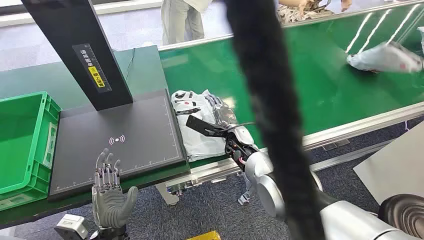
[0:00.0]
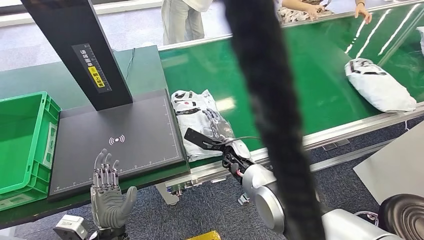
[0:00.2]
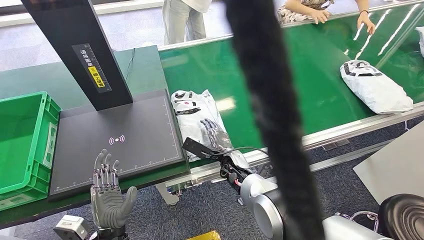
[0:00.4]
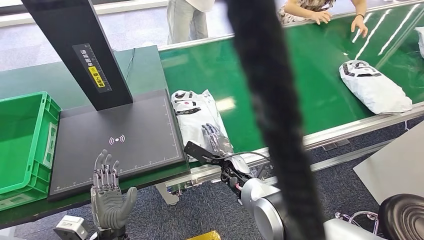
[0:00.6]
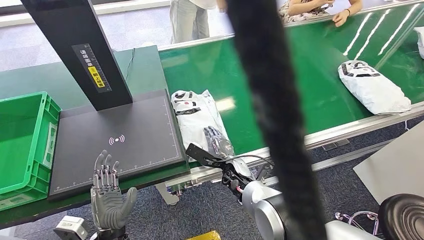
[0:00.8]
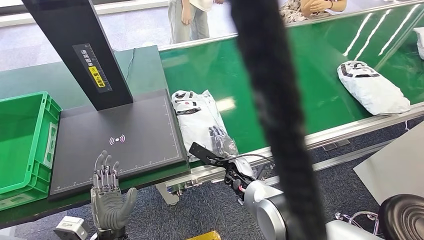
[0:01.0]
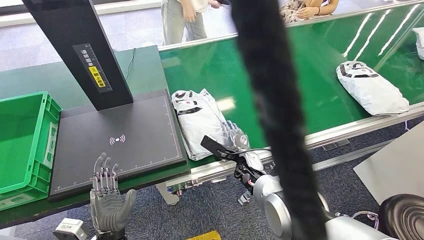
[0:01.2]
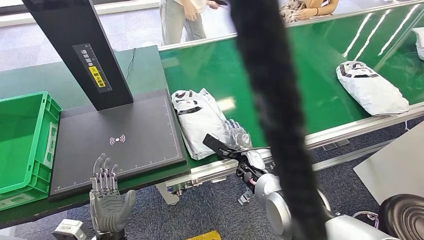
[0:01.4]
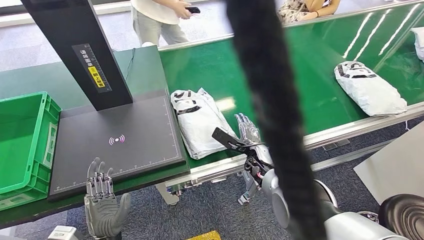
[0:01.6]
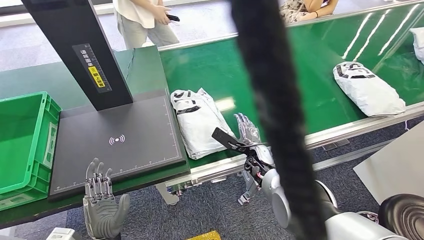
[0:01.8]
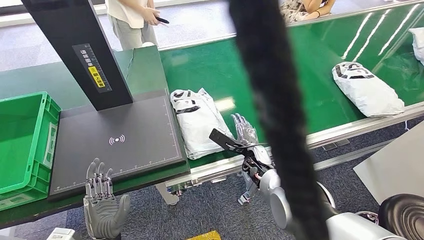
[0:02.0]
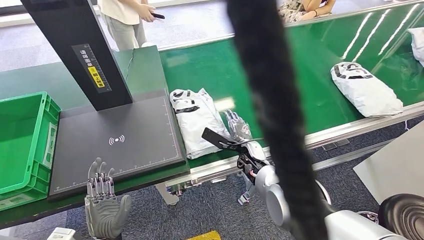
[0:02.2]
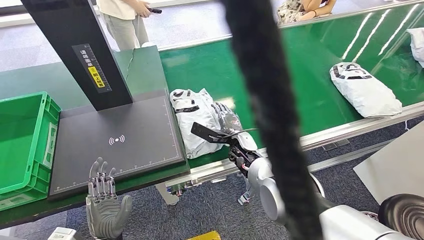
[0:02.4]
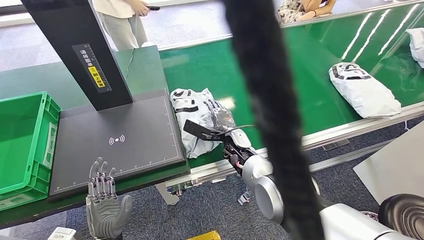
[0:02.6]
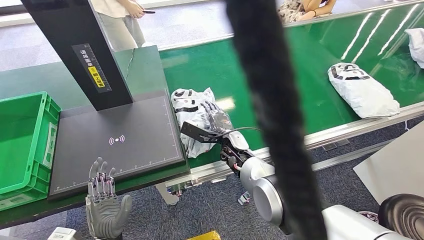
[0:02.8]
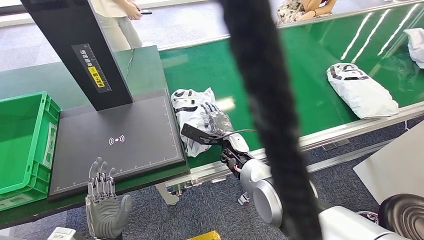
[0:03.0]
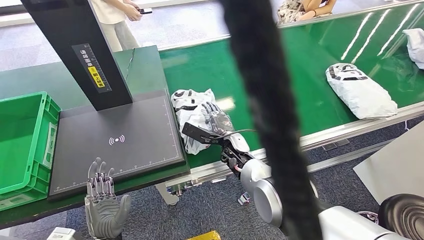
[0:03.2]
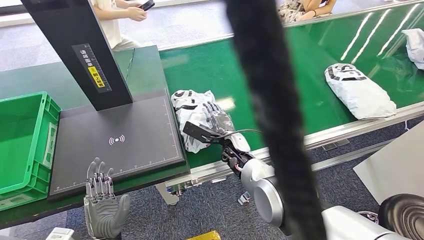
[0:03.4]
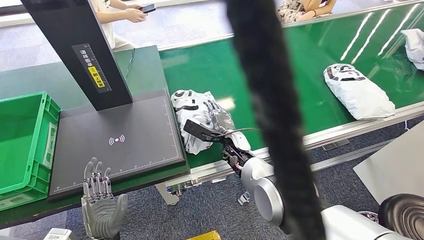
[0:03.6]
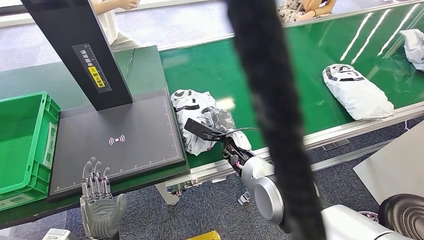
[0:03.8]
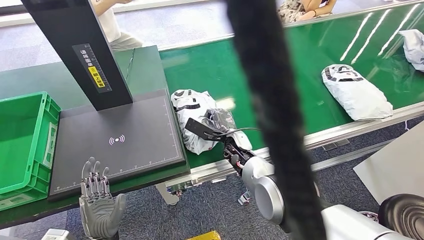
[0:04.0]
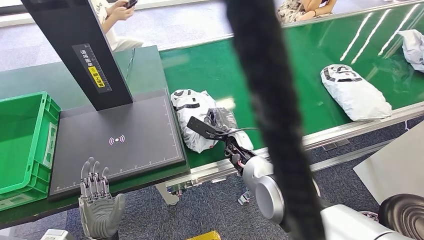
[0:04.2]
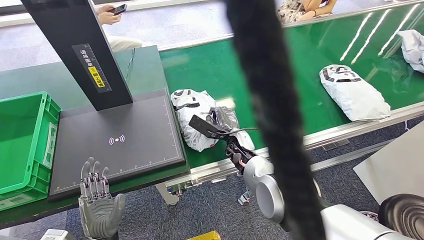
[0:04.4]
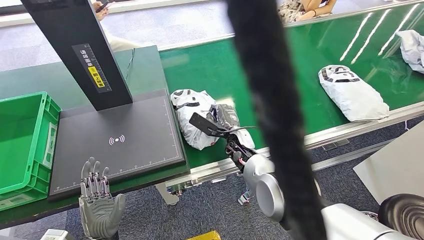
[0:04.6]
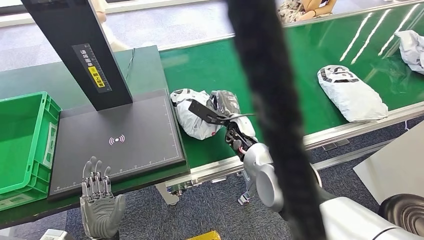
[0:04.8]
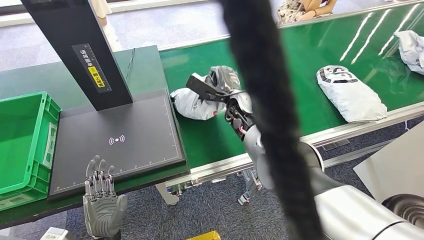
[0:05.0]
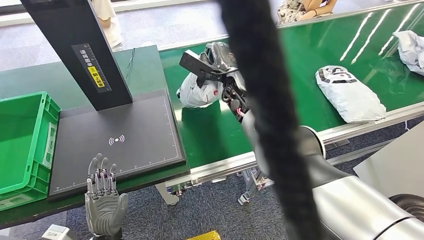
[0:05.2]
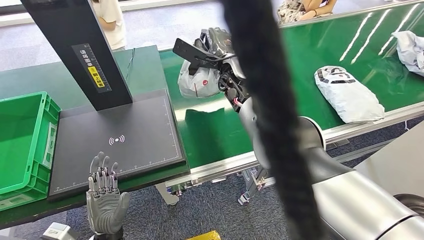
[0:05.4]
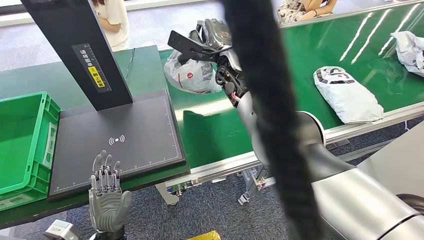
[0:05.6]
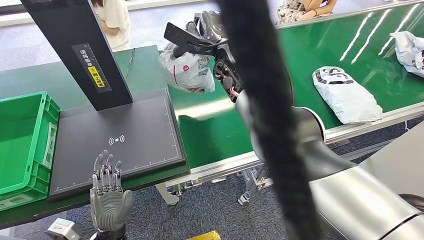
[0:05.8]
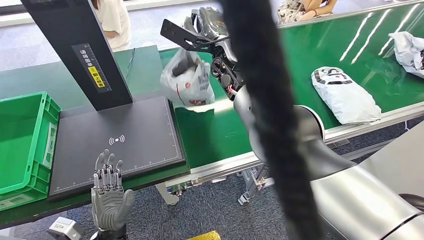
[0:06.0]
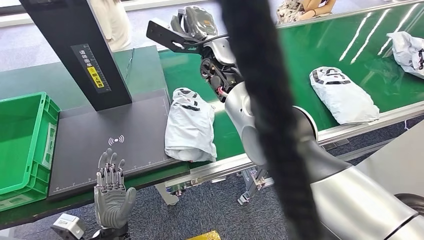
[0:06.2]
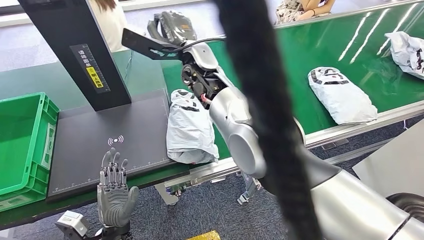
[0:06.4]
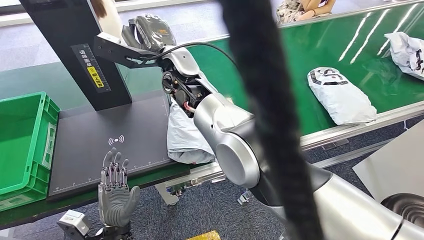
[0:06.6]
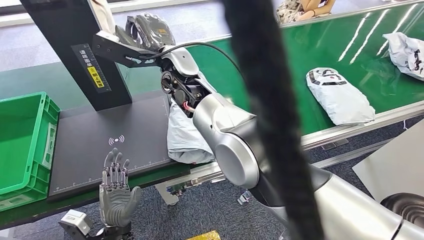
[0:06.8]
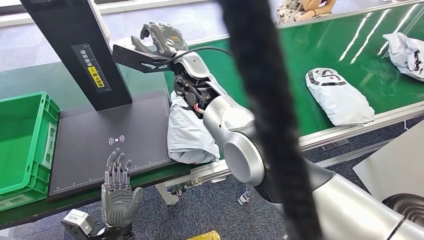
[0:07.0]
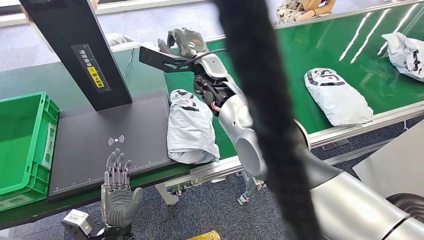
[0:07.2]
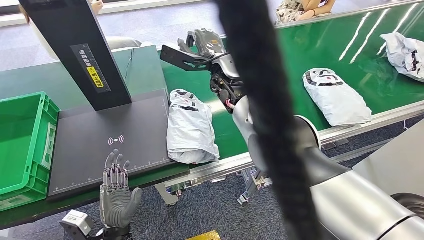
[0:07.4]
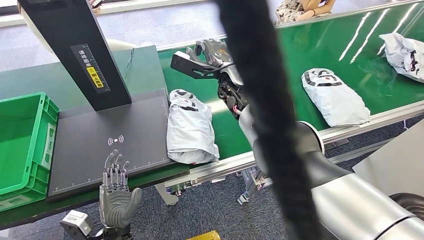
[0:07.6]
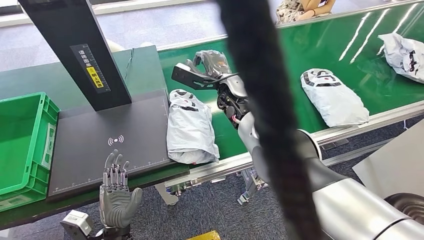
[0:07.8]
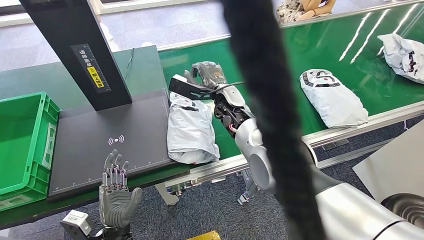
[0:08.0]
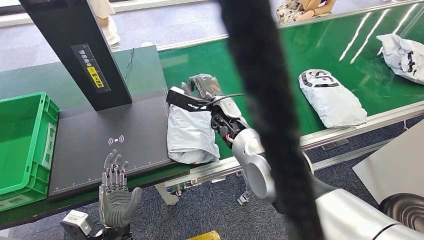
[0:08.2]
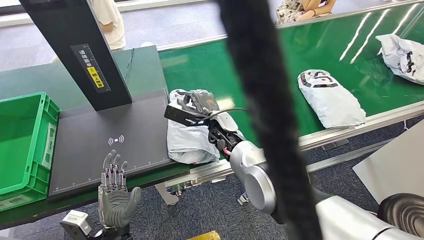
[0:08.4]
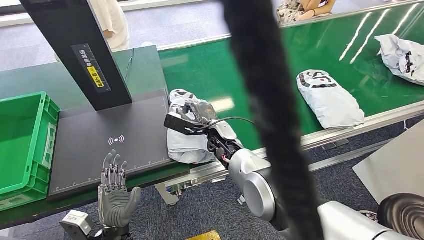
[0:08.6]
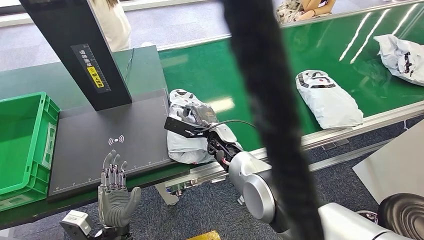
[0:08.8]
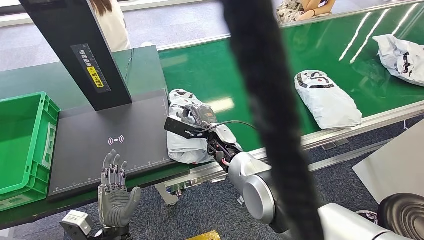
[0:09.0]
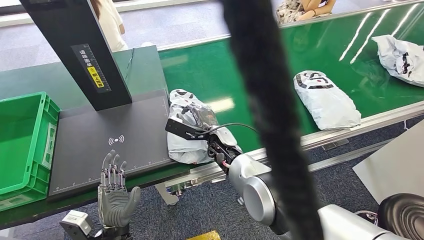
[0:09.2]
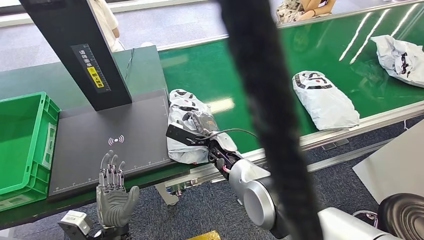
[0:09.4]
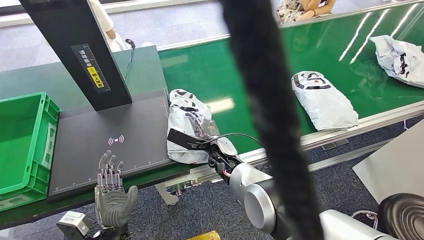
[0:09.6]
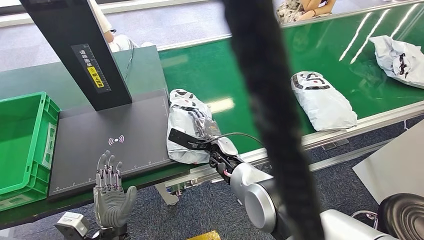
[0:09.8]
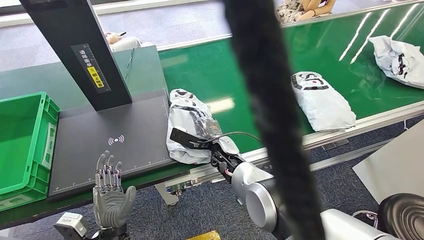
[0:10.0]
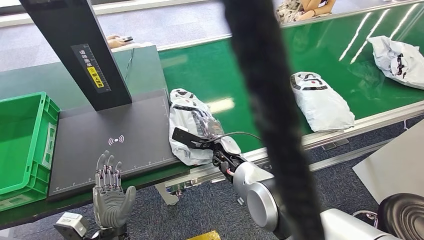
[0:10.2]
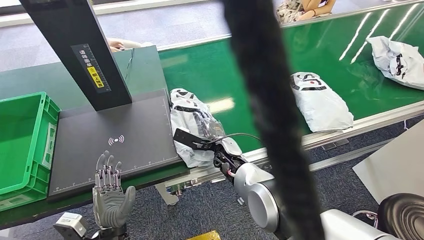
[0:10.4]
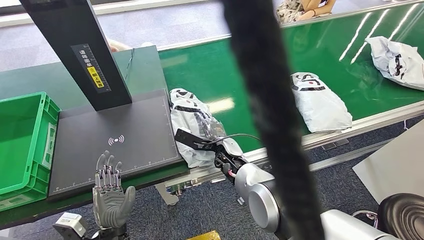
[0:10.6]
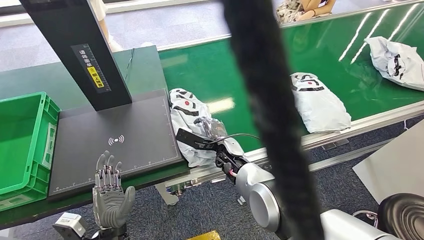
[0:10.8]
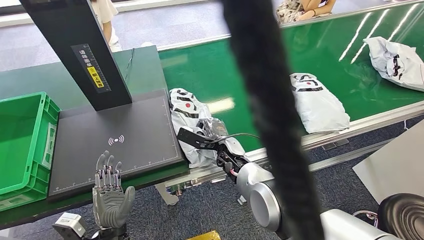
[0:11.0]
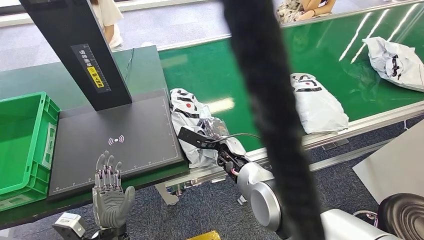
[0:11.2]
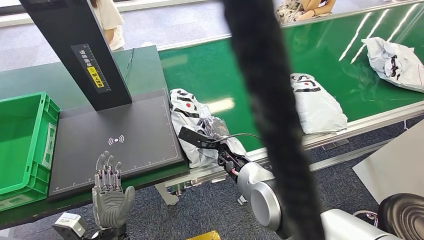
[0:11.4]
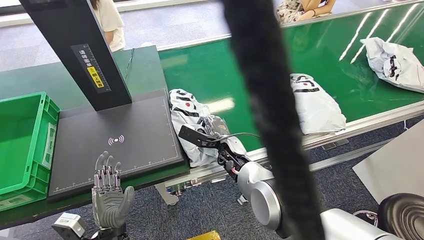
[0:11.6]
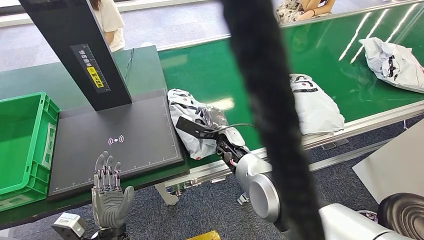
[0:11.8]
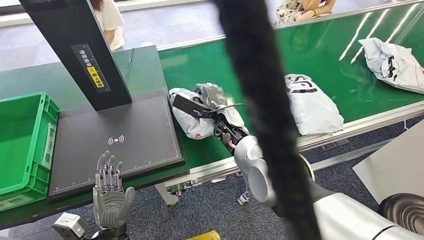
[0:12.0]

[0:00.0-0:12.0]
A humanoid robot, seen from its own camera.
0:01.6 to 0:03.0: The right hand shifts roughly 10 cm to the left.
0:03.0 to 0:04.4: The hands stay close to where they were, moving slightly.
0:09.0 to 0:10.4: The hands stay close to where they were, moving slightly.
0:10.4 to 0:12.0: The right hand heads upward and forward, covering about 10 cm.

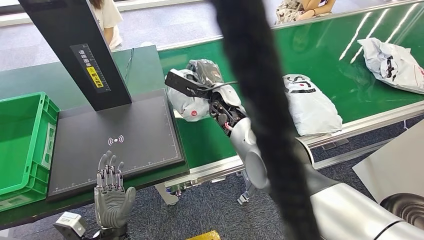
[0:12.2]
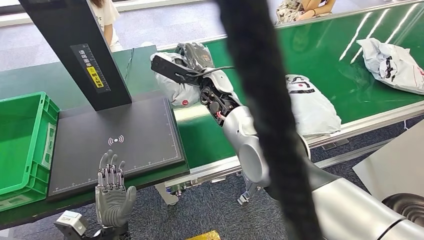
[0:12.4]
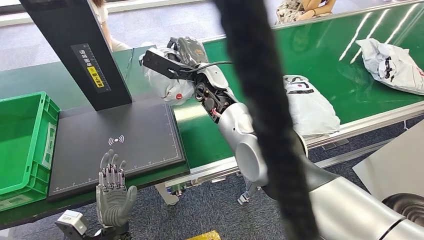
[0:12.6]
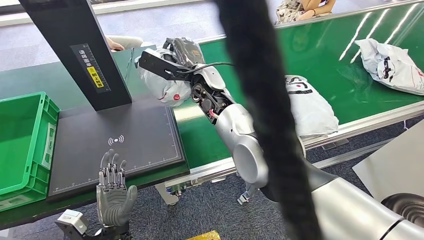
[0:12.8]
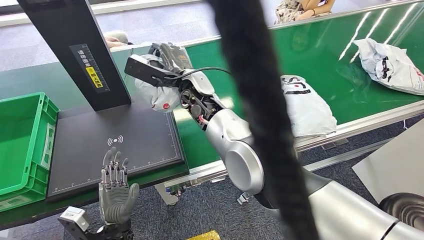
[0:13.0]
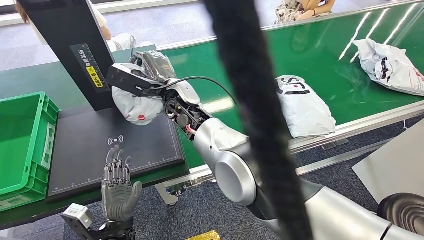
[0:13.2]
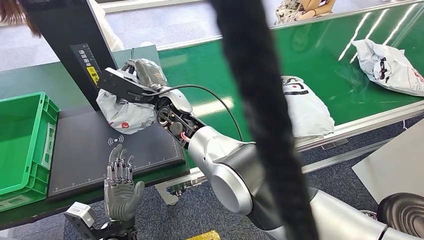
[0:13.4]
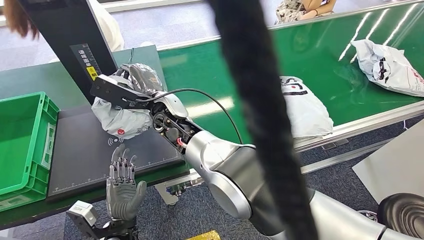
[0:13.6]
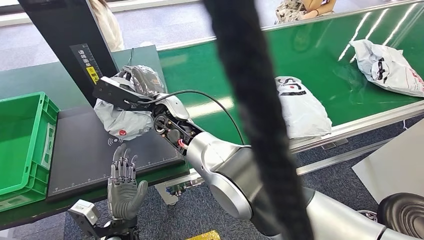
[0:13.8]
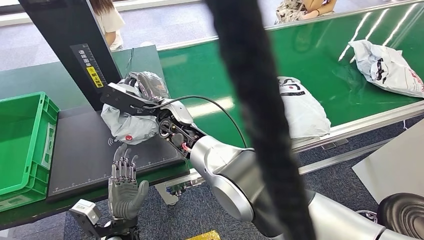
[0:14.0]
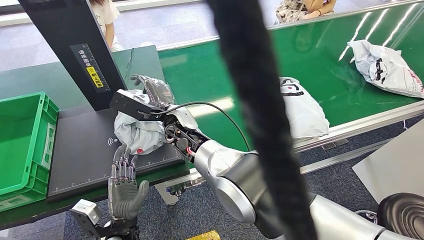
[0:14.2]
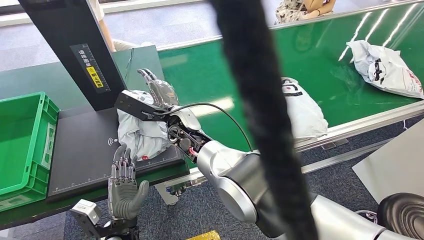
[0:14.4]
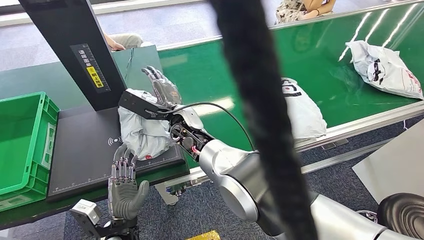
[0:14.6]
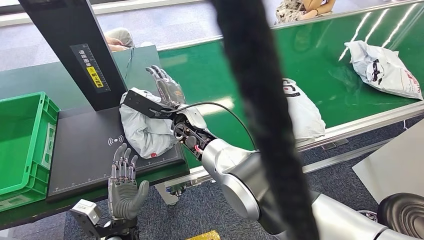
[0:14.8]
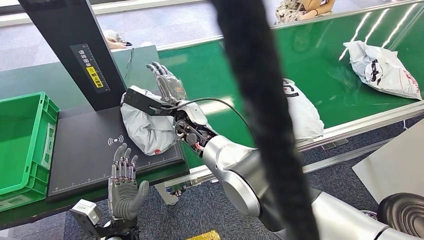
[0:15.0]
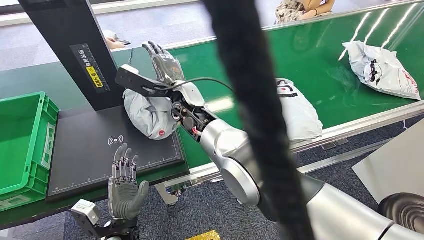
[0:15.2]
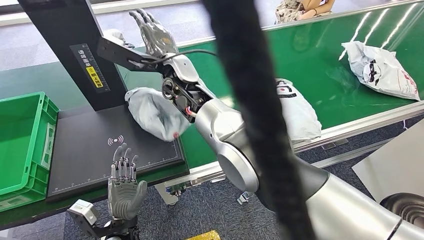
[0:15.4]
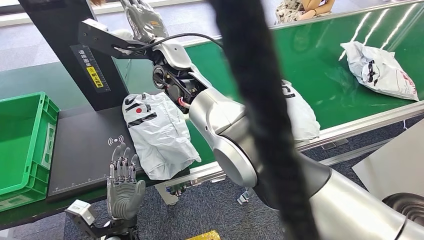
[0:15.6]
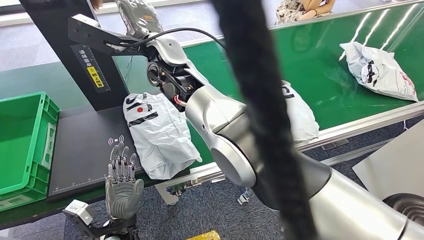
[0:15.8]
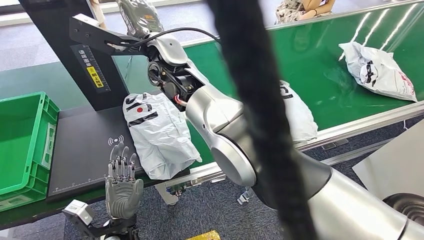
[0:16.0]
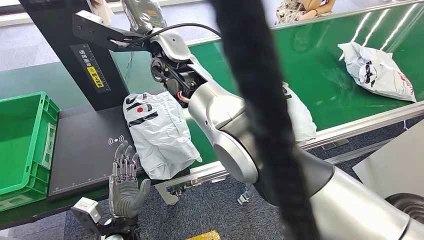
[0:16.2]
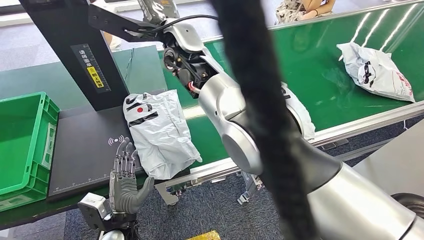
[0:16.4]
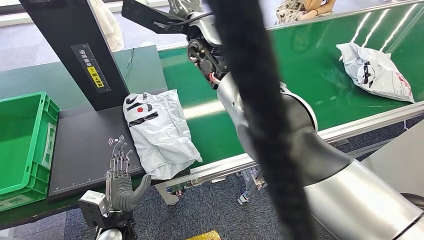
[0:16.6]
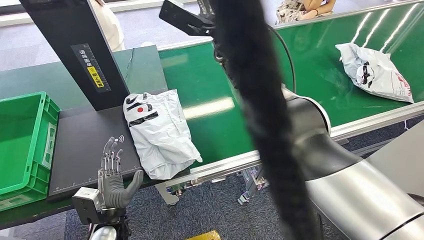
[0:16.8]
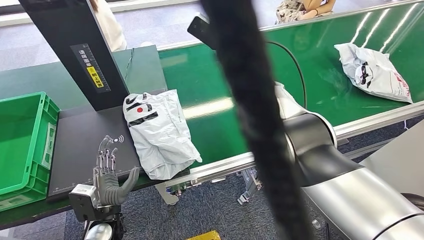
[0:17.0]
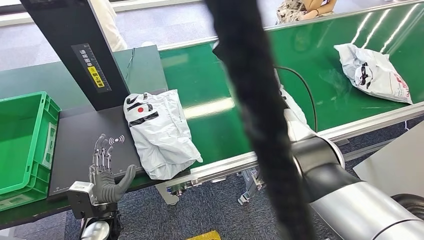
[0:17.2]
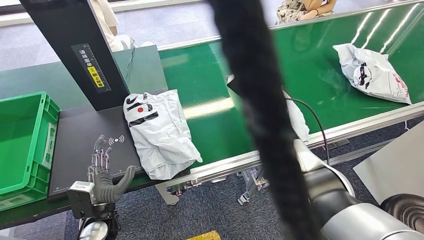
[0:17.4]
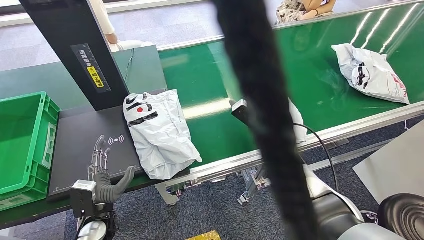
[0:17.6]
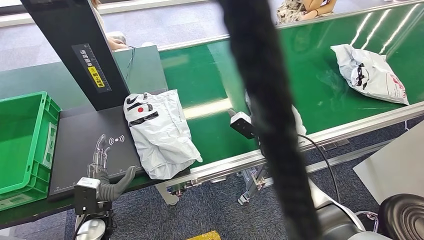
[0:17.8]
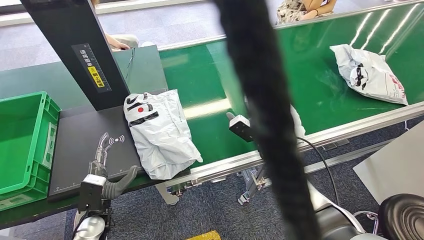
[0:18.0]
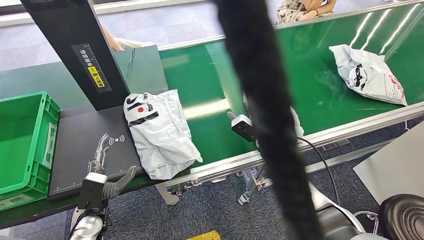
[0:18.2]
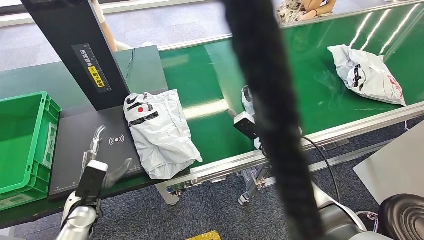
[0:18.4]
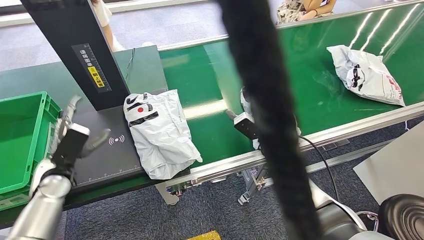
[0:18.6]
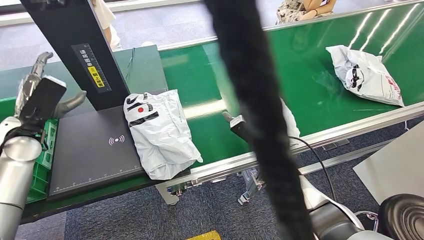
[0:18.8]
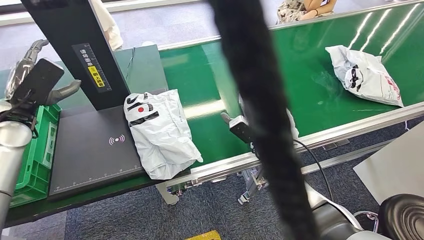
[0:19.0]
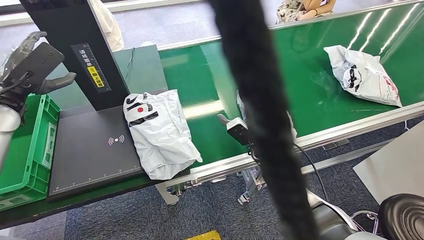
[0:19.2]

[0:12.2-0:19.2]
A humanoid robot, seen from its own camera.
Step, 0:12.4 to 0:16.6: Place the package onto the inbound machine.
0:13.6 to 0:15.0: The right hand heads to the right, covering approximately 5 cm.
0:17.8 to 0:19.2: The left hand is displaced upward and forward by roughly 35 cm.
